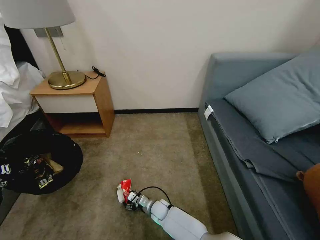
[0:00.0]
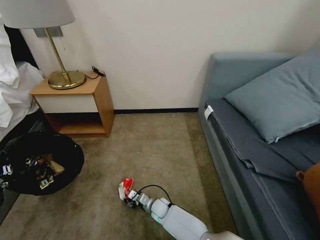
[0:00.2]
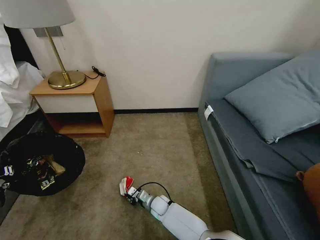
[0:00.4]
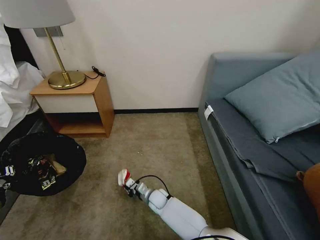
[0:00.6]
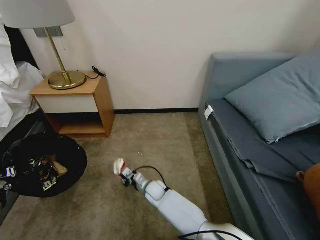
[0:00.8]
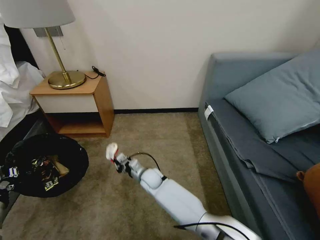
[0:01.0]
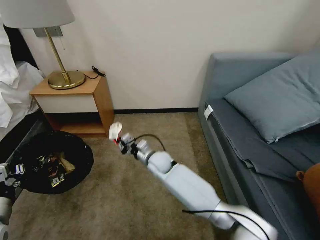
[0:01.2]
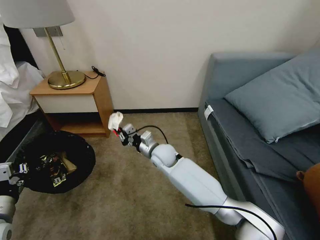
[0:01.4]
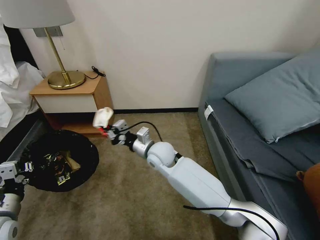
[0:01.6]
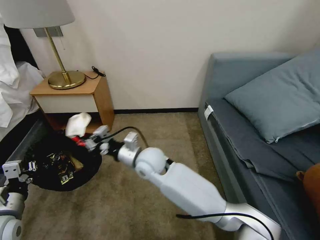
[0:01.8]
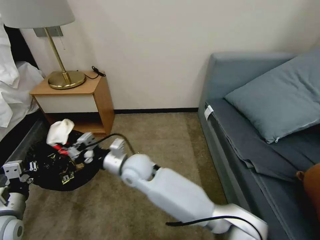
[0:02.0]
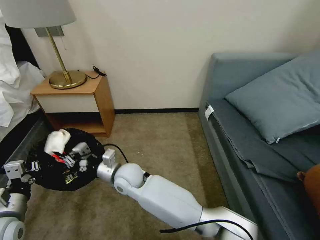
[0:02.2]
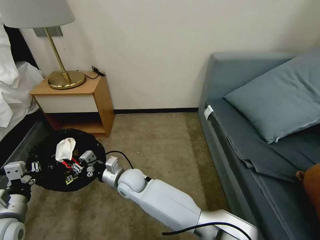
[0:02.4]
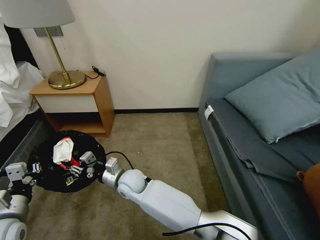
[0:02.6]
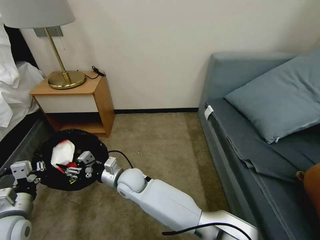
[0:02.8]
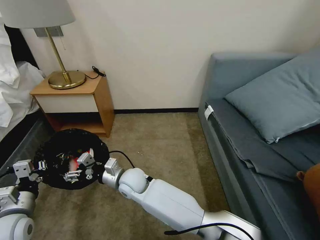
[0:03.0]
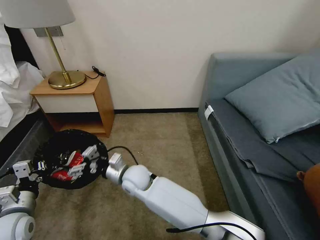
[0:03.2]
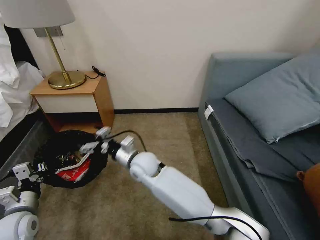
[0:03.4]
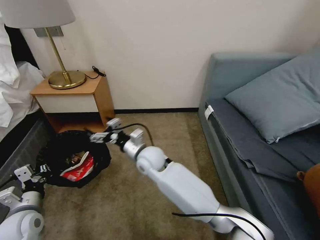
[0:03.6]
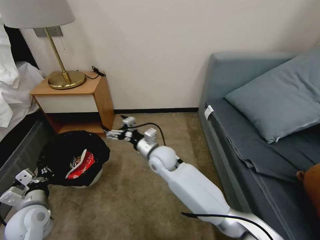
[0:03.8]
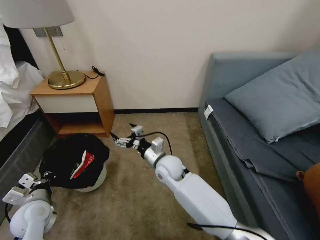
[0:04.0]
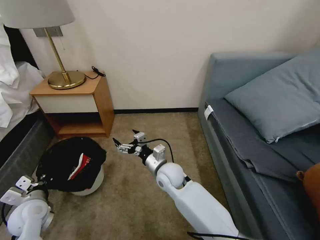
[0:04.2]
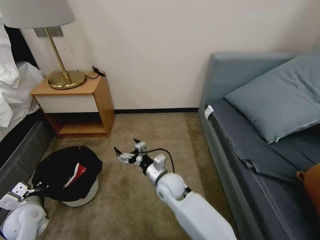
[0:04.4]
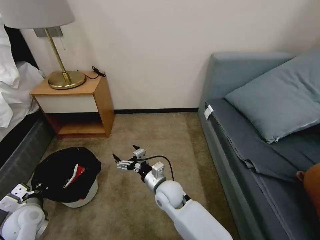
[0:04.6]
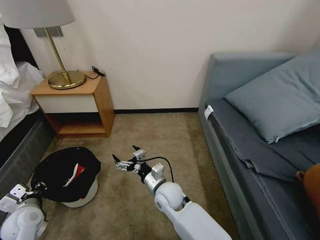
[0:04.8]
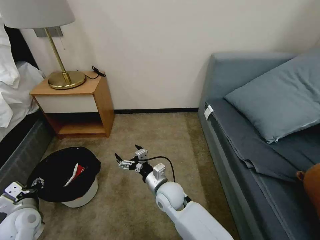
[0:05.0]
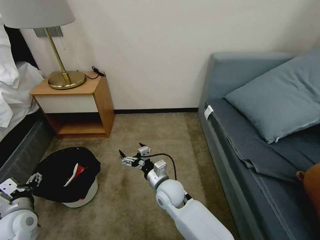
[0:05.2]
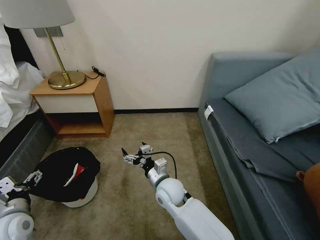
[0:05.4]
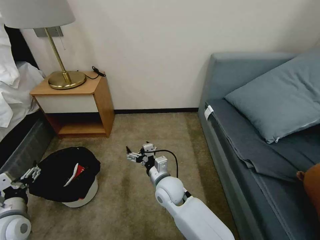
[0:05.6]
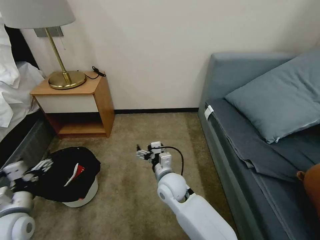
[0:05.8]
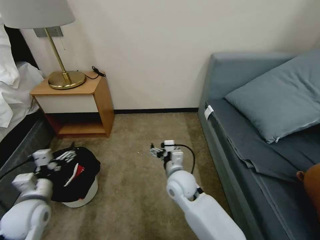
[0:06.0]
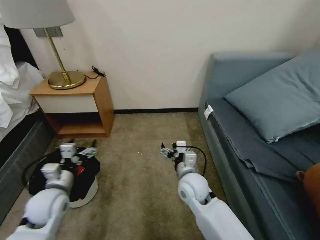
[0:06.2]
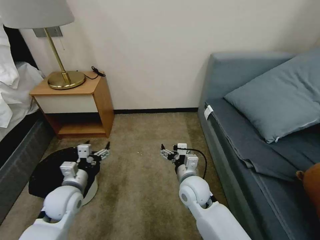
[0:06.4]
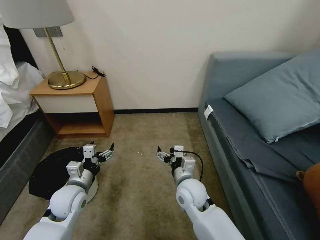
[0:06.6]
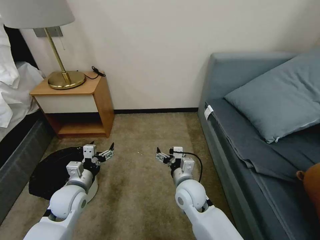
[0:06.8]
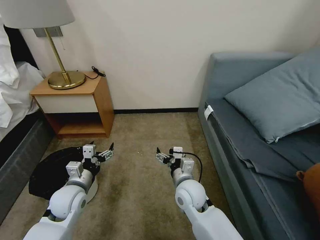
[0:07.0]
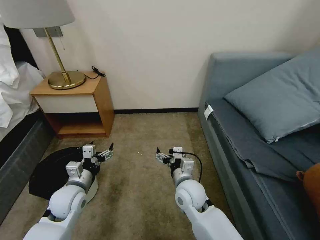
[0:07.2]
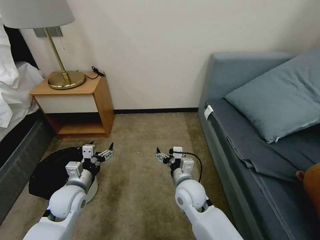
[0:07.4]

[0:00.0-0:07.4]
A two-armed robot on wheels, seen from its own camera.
Task of the whole recording: Pick up the trash bin, then pick up the garbage on the floor and place it into the trash bin.
0:00.0 to 0:01.4: The right gripper heads upward and forward, covering about 30 cm, and closes its fingers.
0:01.4 to 0:03.0: The right gripper travels to the left and backward by approximately 15 cm, and opens.
0:03.0 to 0:04.4: The left gripper shifts some 5 cm downward; the right gripper shifts about 15 cm to the right.
0:04.4 to 0:06.0: The left gripper travels upward by about 5 cm, and opens its fingers.
0:06.0 to 0:07.4: The right gripper changes place by about 5 cm. Meanwhile the left gripper moves to the right and forward, roughly 15 cm.

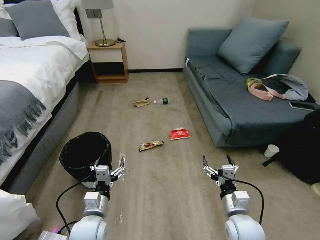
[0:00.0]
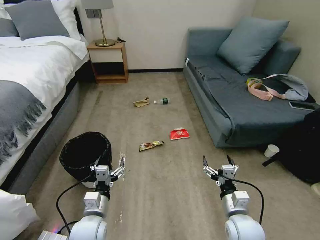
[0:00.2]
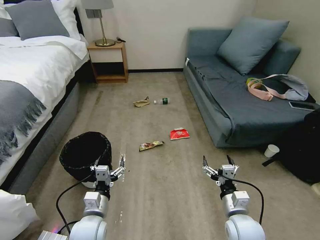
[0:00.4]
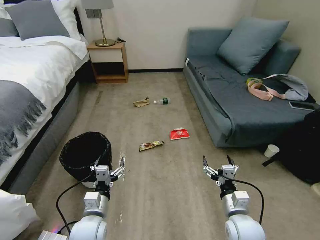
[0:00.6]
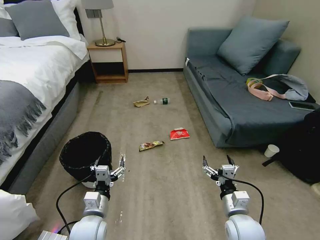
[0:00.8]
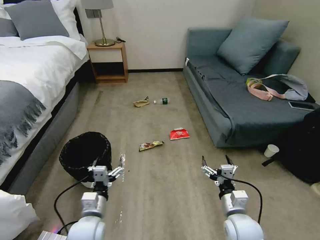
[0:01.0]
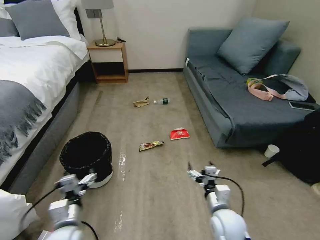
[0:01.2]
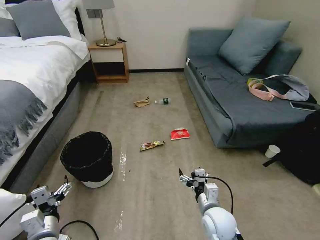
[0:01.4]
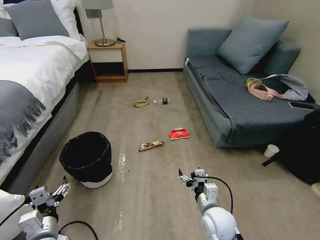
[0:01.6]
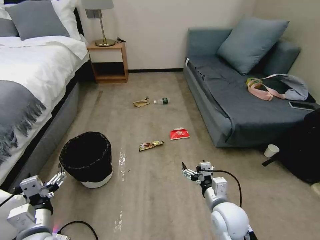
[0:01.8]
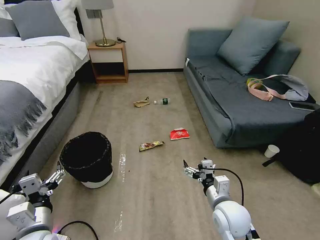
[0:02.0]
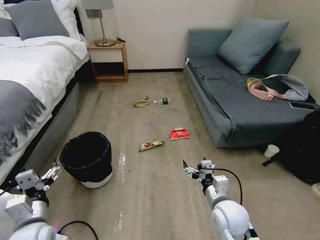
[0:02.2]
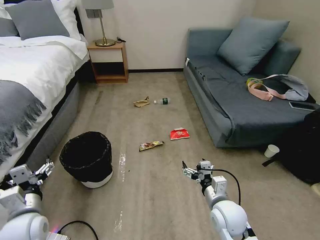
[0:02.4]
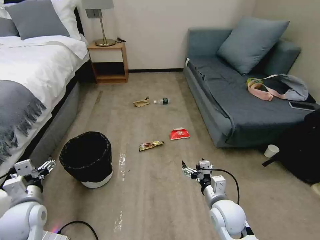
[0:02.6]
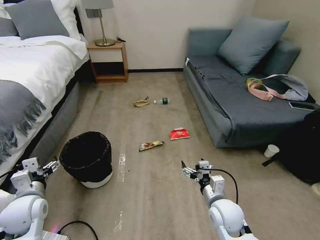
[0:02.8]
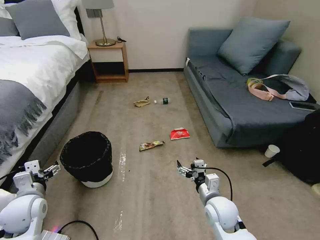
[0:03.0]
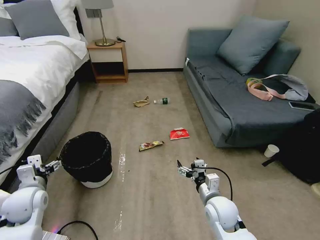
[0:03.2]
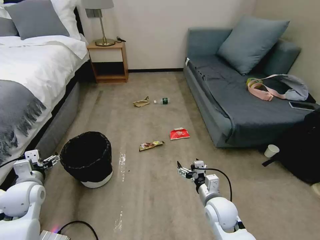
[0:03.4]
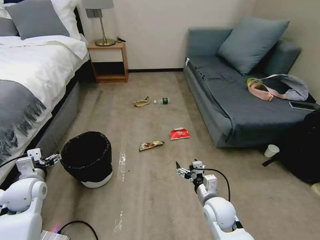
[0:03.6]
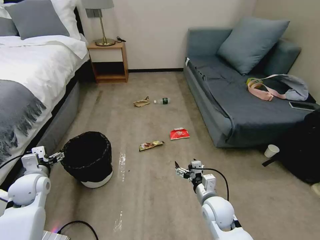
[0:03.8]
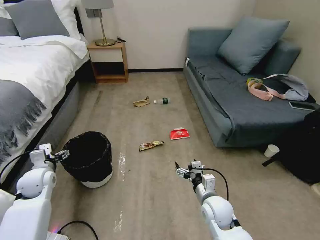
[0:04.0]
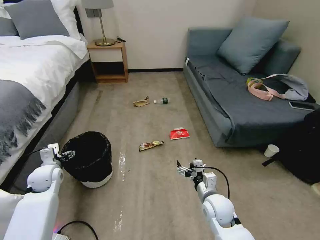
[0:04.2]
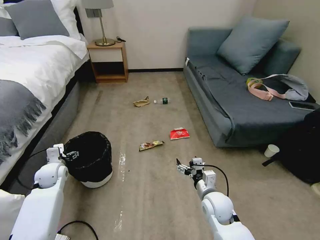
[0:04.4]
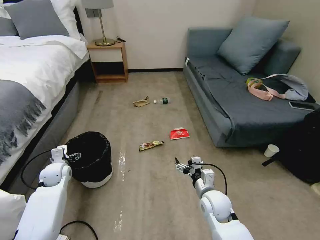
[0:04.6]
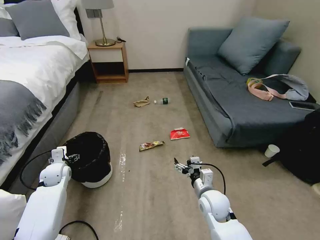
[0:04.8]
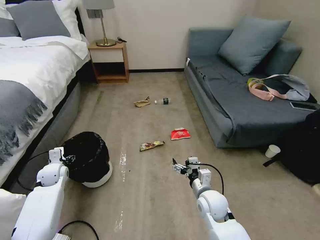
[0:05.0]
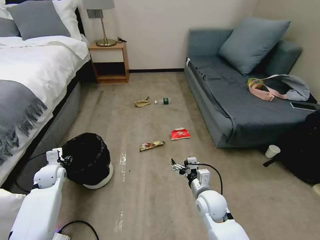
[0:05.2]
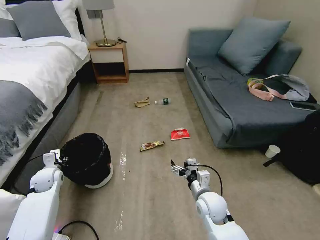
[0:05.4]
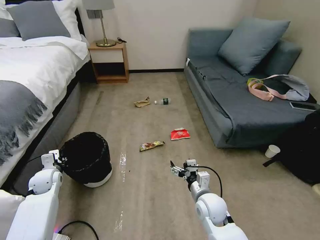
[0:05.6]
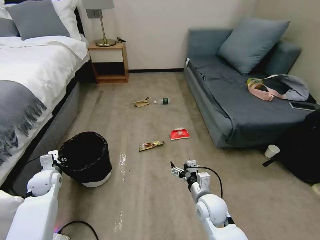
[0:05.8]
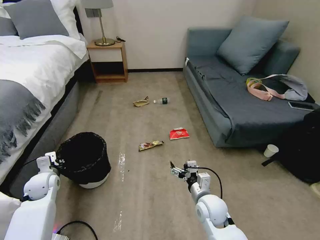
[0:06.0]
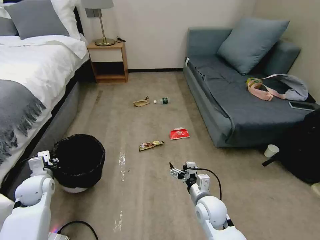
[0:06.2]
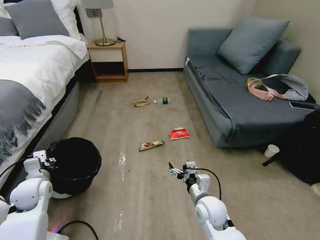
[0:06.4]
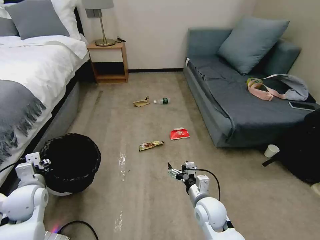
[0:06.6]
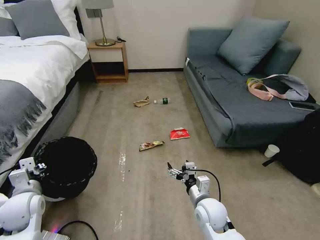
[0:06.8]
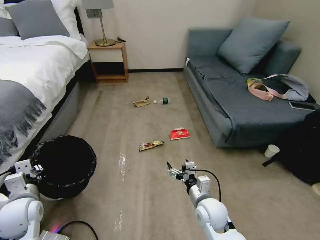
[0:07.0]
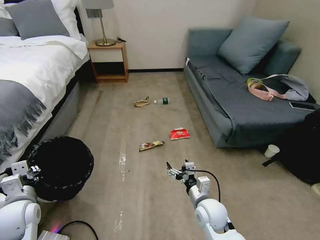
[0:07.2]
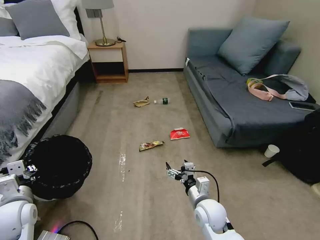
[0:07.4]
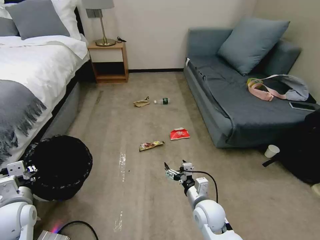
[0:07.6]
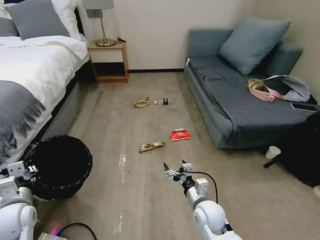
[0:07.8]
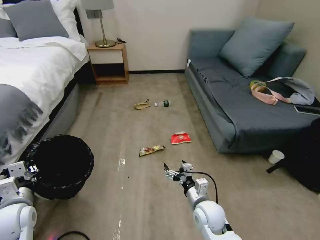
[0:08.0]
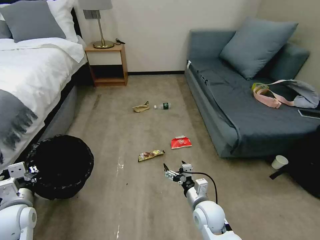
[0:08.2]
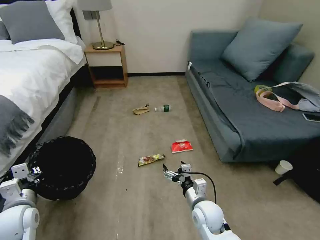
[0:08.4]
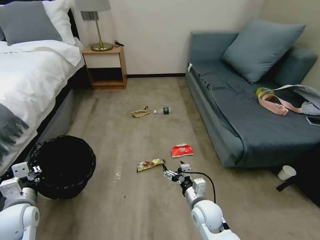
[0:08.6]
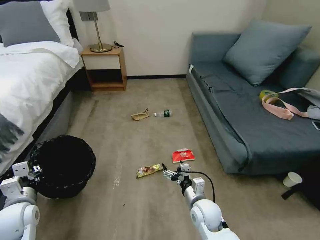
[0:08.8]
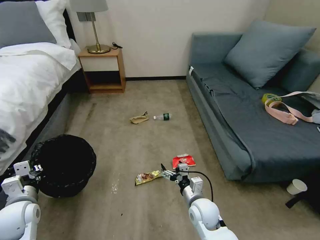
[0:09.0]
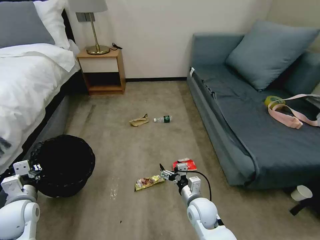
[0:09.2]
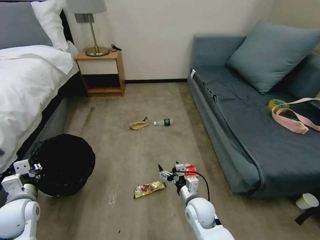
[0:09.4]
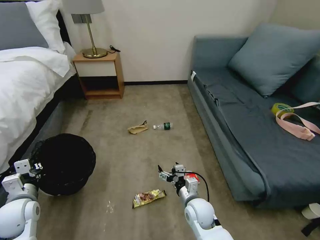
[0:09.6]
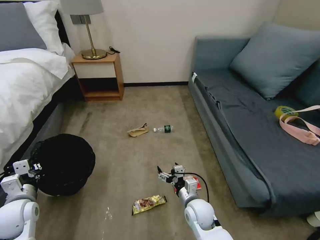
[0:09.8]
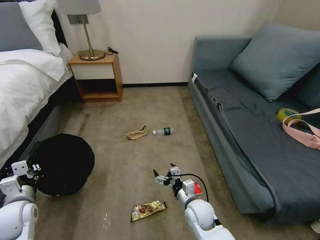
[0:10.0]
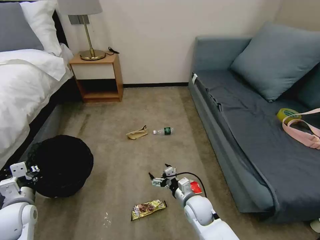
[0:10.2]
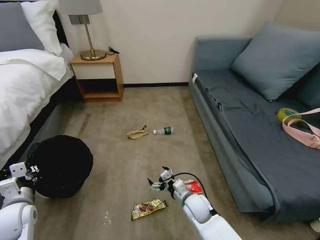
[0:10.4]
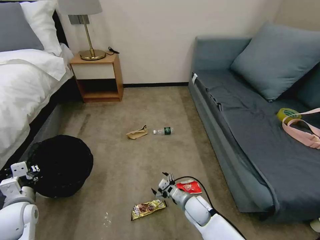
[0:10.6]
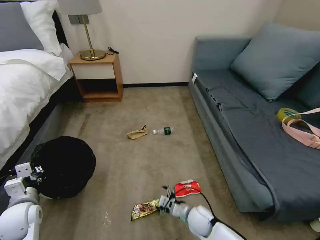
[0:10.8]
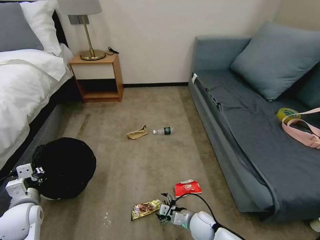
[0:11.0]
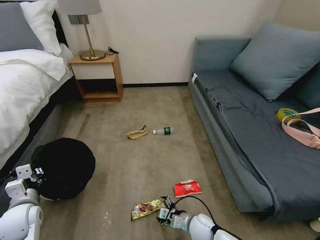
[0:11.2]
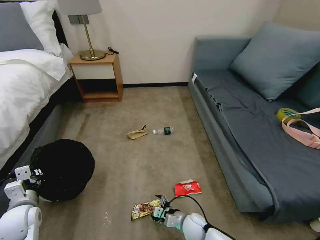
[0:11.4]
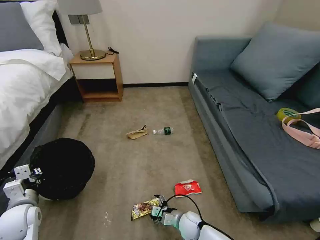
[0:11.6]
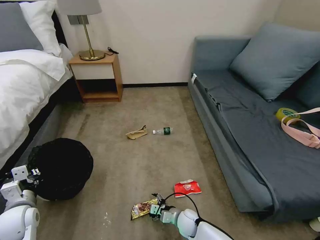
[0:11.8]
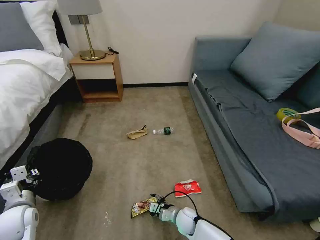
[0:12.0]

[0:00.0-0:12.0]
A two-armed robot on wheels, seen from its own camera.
Task of the whole recording: Pick up the trash bin, then pick up the garbage on the floor and place it into the trash bin.
0:01.6 to 0:03.0: The left gripper goes roughly 15 cm forward and to the left.
0:03.0 to 0:04.4: The left gripper goes roughly 15 cm forward.
0:04.4 to 0:06.0: The left gripper closes its fingers.
0:06.0 to 0:07.6: The left gripper is displaced backward and upward by about 15 cm.
0:10.4 to 0:12.0: The right gripper heads downward, covering approximately 10 cm.

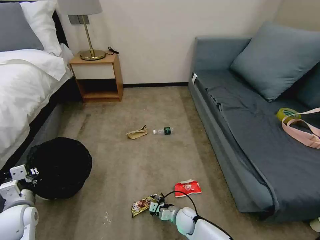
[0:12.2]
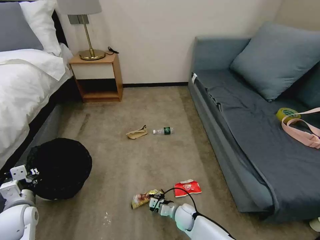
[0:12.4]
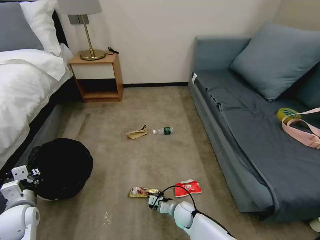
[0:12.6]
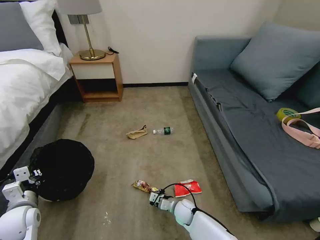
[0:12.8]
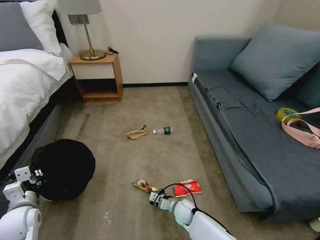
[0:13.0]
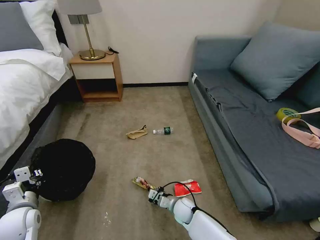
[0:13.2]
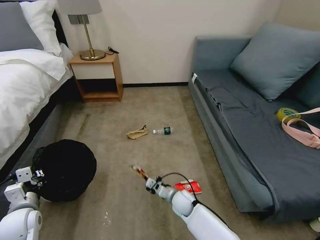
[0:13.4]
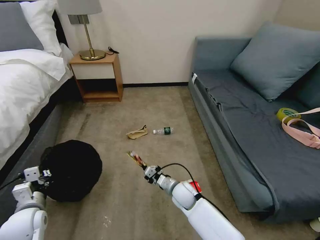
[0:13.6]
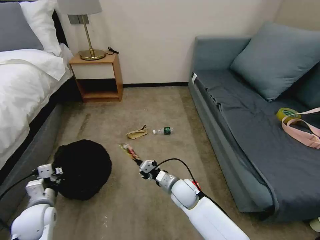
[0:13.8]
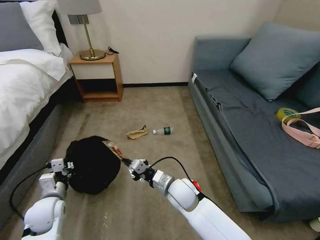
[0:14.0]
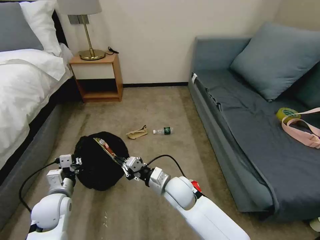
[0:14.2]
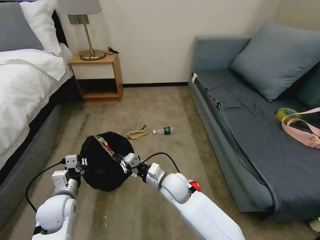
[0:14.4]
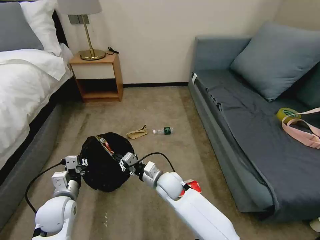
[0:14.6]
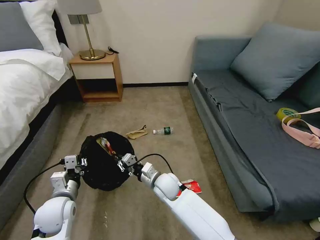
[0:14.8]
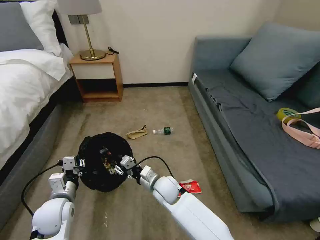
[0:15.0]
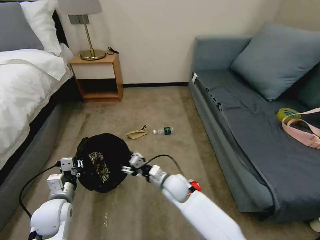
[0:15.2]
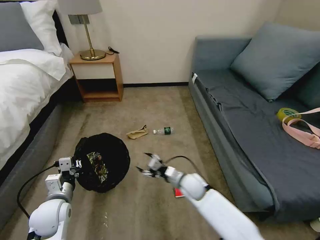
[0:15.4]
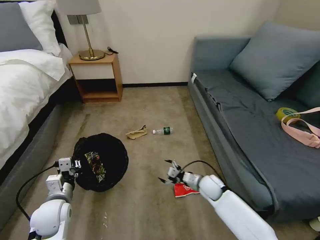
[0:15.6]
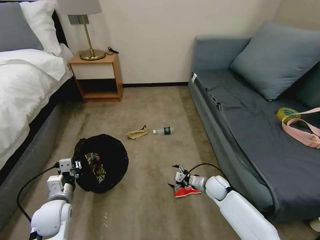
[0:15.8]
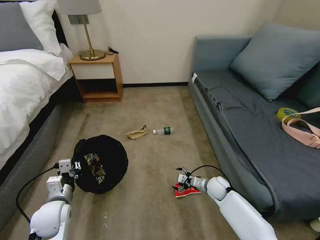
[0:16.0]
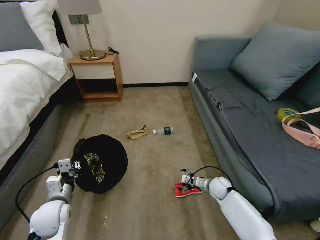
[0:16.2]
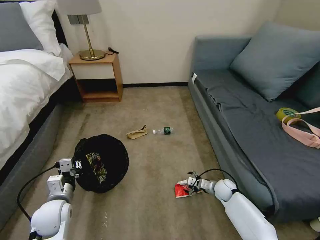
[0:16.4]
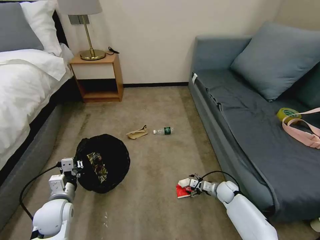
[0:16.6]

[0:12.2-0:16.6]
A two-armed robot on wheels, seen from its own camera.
Task of the whole recording: Pick up the trash bin, then pick up the garbage on the floor and place it into the trash bin.
0:12.2 to 0:13.6: The right gripper heads upward and forward, covering some 15 cm, and closes.
0:13.6 to 0:15.2: The left gripper shifts approximately 5 cm to the right, while the right gripper travels upward and to the left by approximately 10 cm, and opens up.
0:15.2 to 0:16.6: The right gripper is displaced to the right and downward by some 30 cm.
